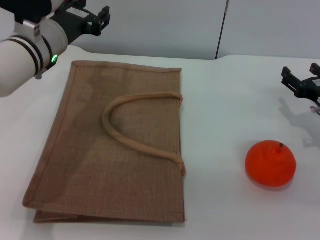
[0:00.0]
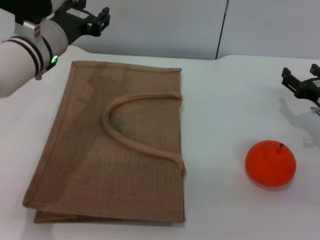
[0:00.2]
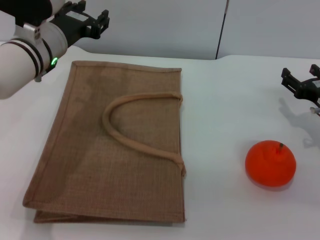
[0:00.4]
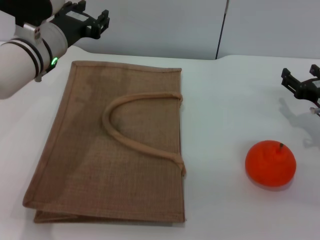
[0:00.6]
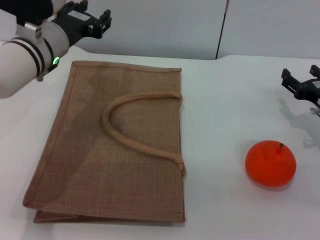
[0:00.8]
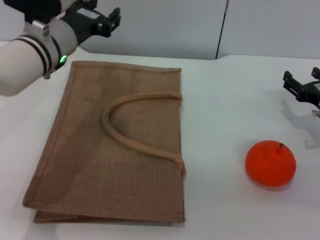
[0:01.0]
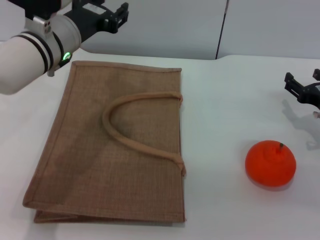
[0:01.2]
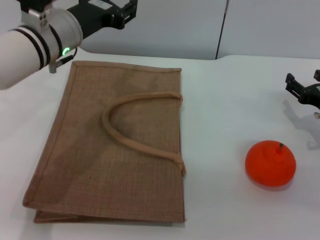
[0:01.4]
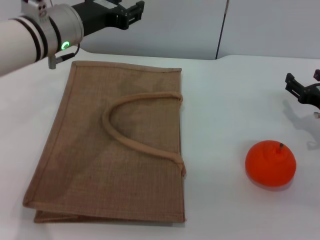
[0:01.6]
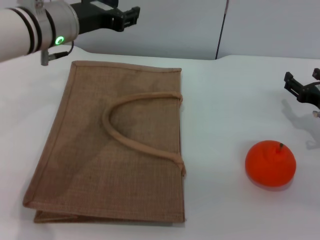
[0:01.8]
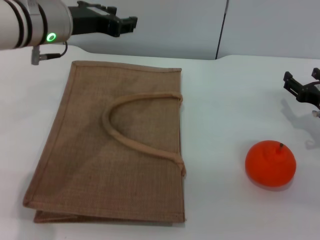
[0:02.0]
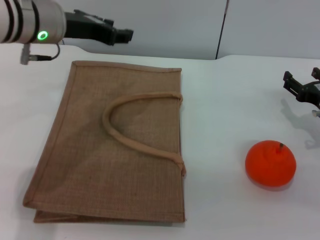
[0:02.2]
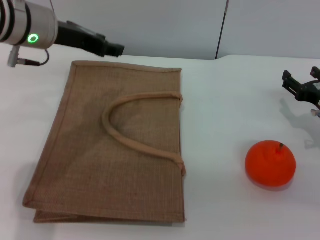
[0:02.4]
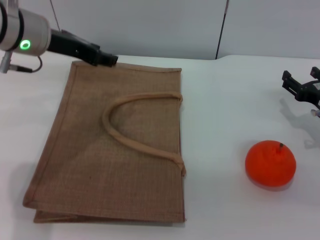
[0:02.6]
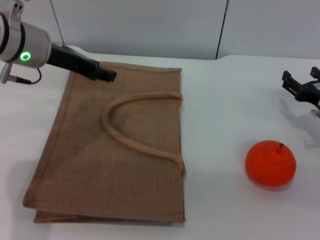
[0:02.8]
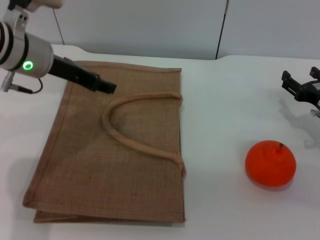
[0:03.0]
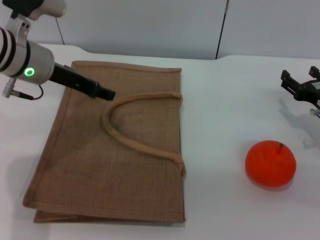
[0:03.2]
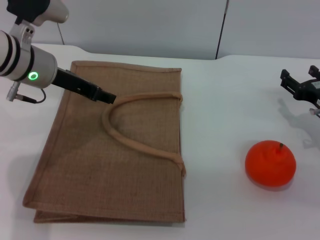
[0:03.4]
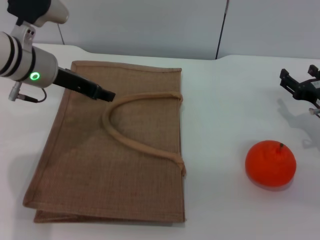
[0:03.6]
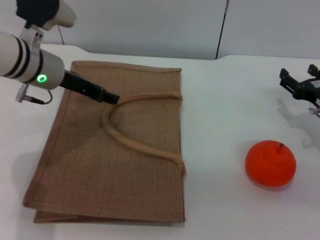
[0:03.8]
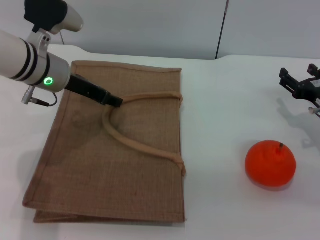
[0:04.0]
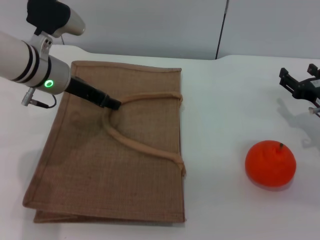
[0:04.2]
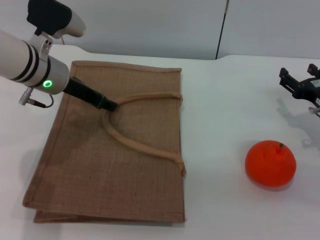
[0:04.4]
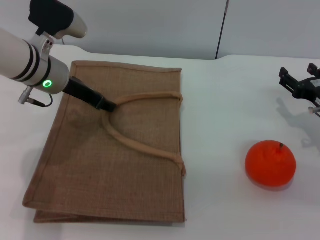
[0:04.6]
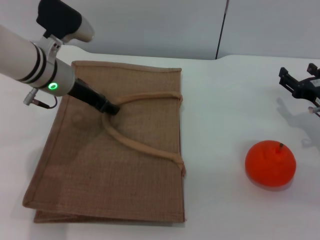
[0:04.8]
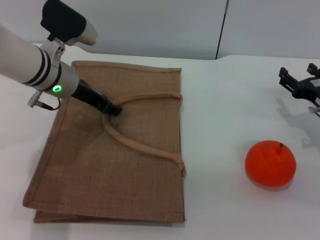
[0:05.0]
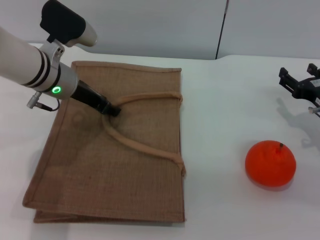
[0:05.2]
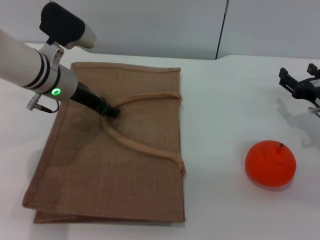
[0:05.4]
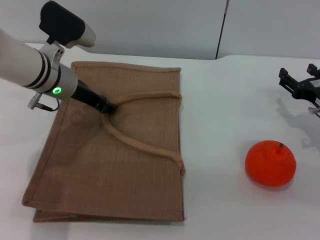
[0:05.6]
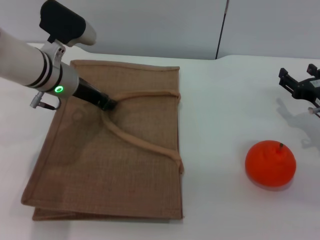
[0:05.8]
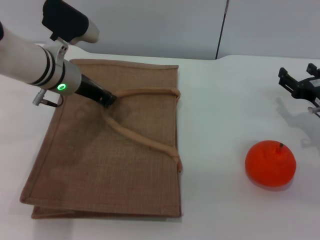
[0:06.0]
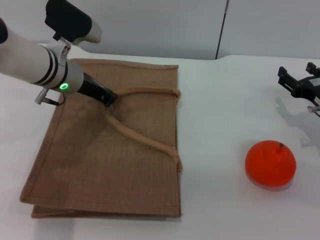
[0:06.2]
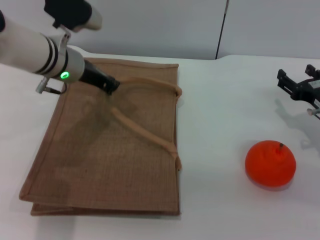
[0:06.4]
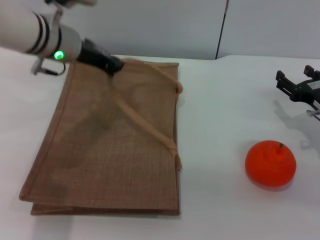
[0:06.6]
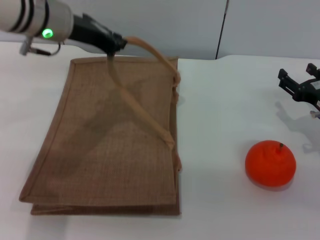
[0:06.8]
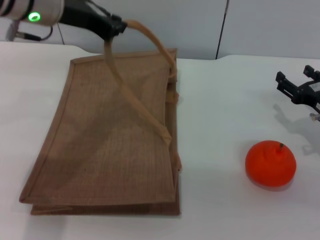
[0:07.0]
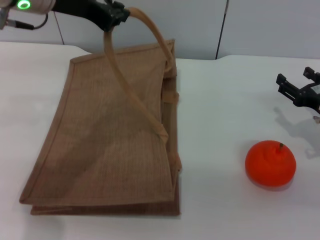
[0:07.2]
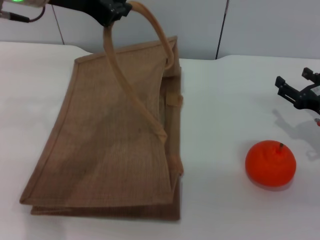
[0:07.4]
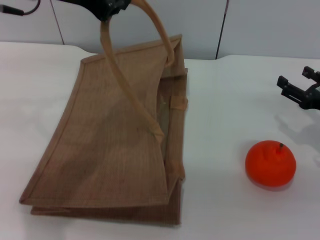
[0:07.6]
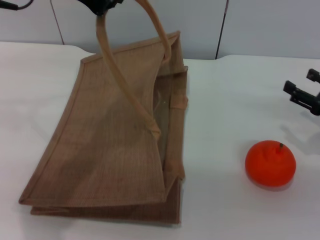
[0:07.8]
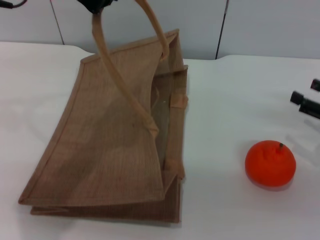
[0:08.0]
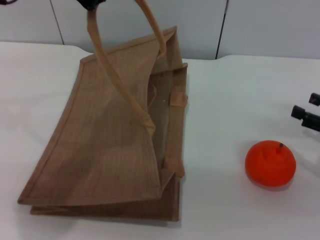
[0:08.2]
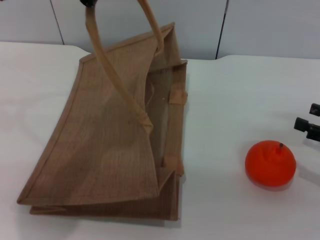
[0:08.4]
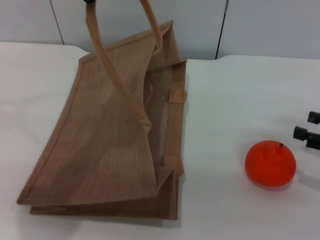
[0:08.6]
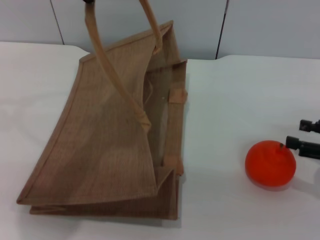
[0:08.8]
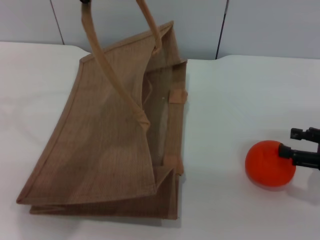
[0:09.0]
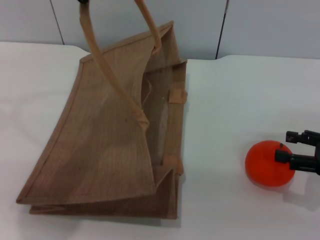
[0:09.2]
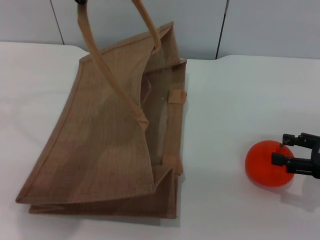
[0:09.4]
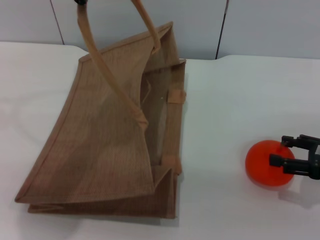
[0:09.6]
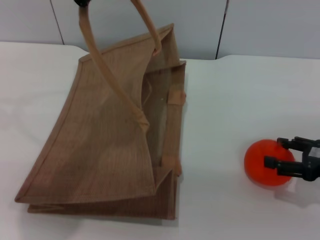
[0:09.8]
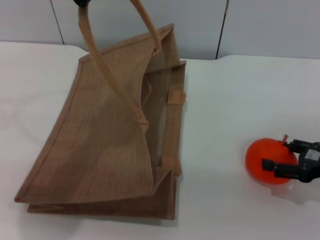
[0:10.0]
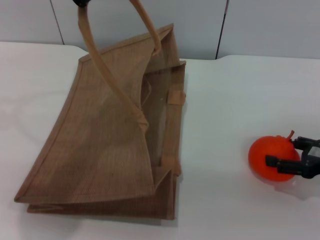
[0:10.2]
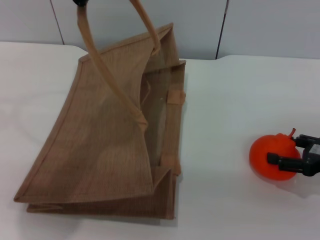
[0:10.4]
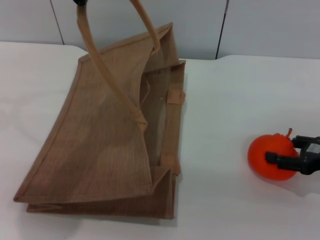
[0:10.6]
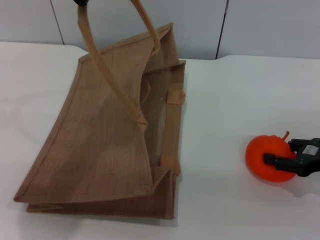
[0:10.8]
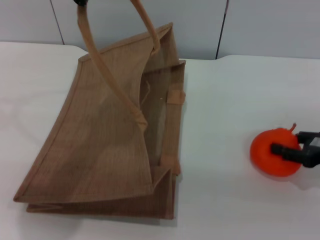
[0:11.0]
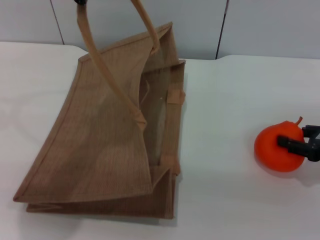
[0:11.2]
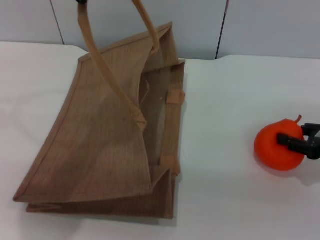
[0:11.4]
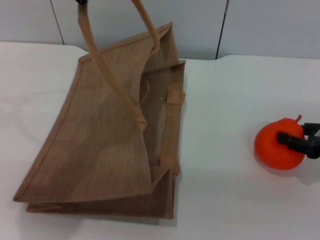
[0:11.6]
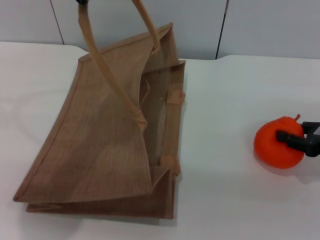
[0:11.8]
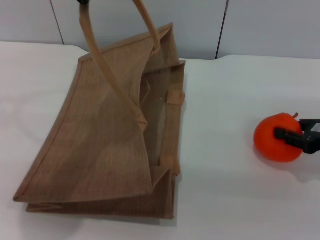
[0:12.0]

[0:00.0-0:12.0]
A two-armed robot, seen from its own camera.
Task of the whole recording: pick up the orange from the table and place it in the brown handbag.
Step, 0:00.0 to 0:07.6: Lift the woven bag with the left gripper to open it.
0:00.0 to 0:01.6: The grippers make only small movements.
0:03.0 to 0:04.4: The left gripper is displaced downward by approximately 5 cm.
0:04.4 to 0:06.0: There are only small adjustments of the grippers.
0:06.0 to 0:07.6: The left gripper travels upward by roughly 20 cm.
0:07.6 to 0:09.0: The right gripper shifts approximately 5 cm backward.
0:09.0 to 0:10.4: The grippers make only small movements.
0:10.4 to 0:12.0: The right gripper closes its fingers.

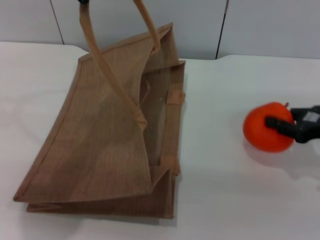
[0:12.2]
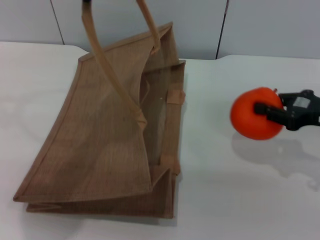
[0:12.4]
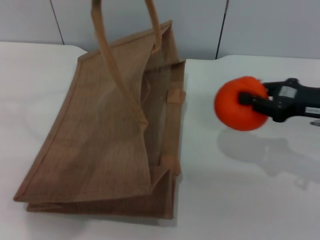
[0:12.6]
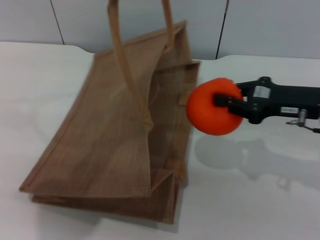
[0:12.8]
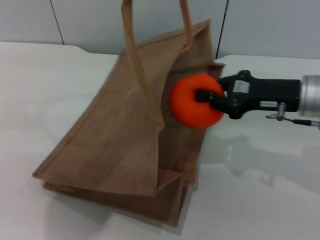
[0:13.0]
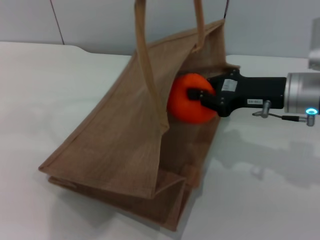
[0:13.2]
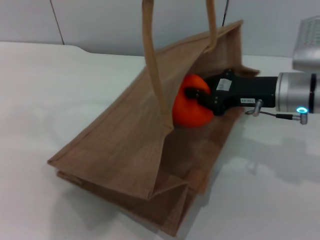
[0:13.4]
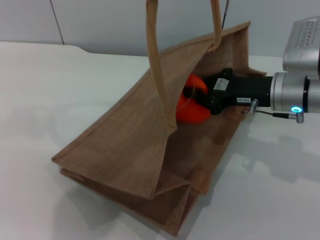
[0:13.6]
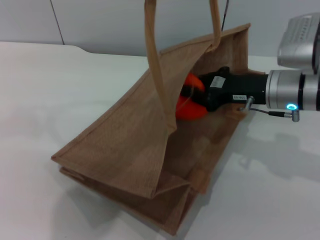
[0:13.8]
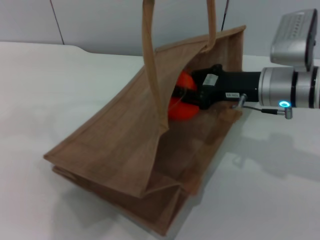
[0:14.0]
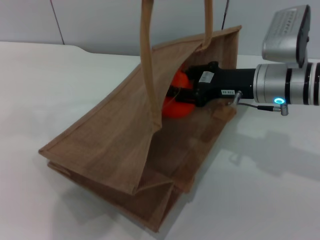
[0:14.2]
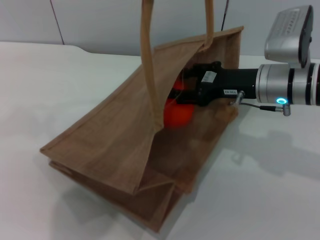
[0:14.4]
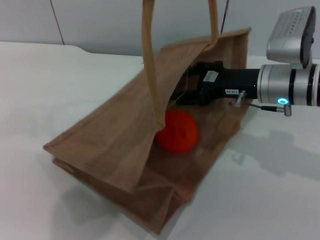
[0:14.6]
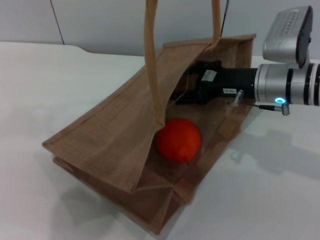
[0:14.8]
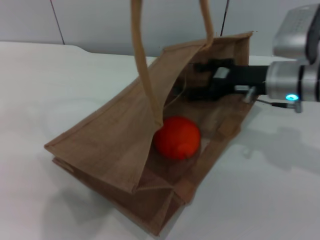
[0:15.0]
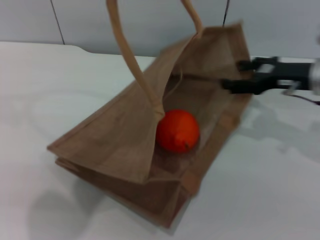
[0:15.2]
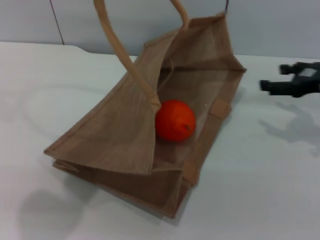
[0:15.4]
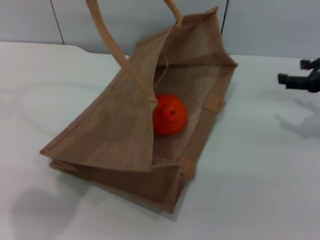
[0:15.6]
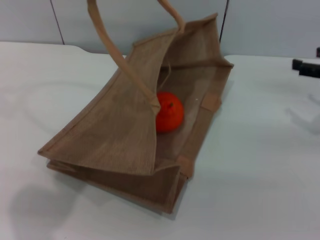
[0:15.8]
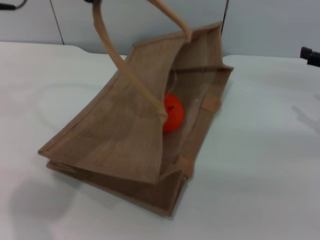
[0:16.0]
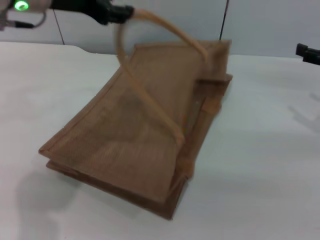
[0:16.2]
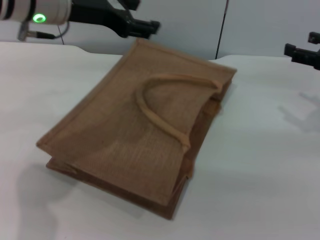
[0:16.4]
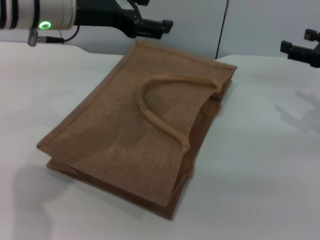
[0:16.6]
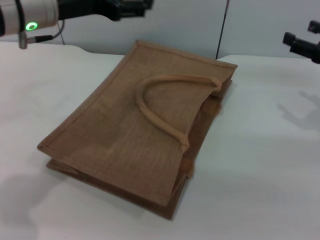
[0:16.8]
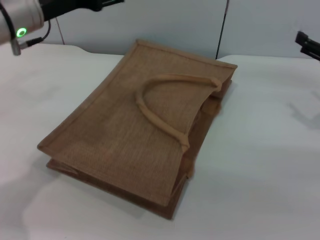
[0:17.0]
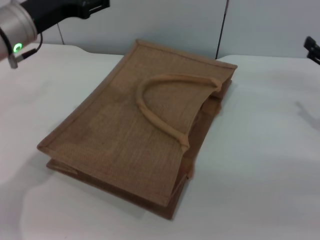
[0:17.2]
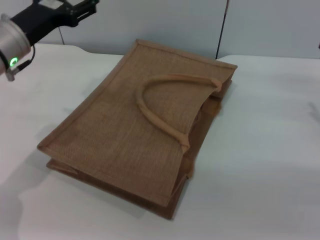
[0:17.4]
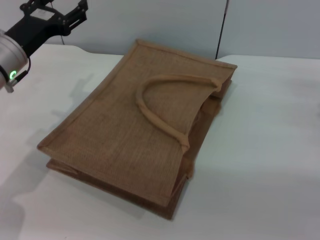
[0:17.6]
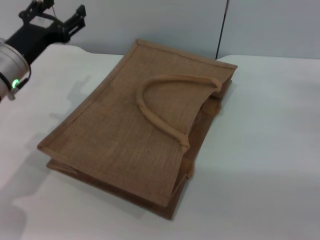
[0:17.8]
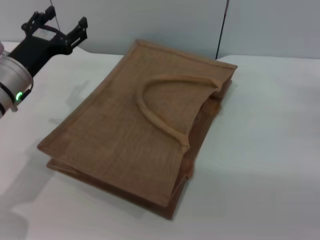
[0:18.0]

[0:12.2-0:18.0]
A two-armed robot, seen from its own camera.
Task of the whole recording: pick up the orange from the table and place it in the brown handbag.
Step, 0:12.8 to 0:15.4: Place the orange into the woven bag with the right gripper.
Step, 0:15.6 to 0:16.2: Lower the woven bag with the left gripper to close it.
0:12.2 to 0:13.6: The right gripper travels to the left and forward by some 15 cm, while the left gripper travels to the right by approximately 5 cm.
0:13.6 to 0:15.0: The right gripper opens.
0:15.0 to 0:16.6: The right gripper goes some 15 cm to the right, while the left gripper shifts approximately 10 cm downward, and opens its fingers.
0:16.6 to 0:18.0: The right gripper heads downward and backward, covering some 10 cm, while the left gripper shifts approximately 15 cm downward and to the left.
